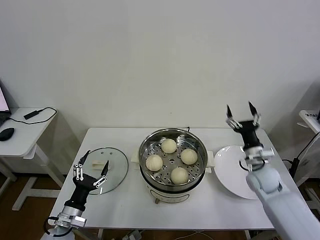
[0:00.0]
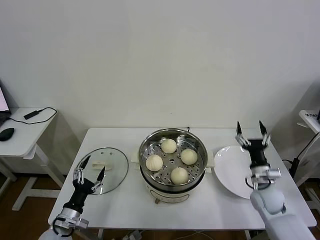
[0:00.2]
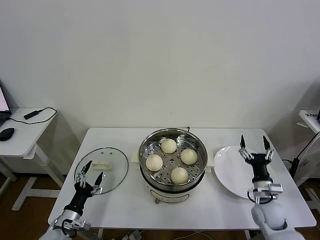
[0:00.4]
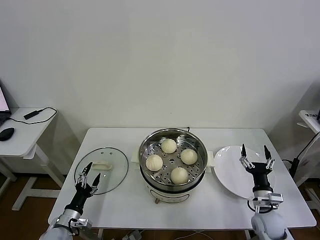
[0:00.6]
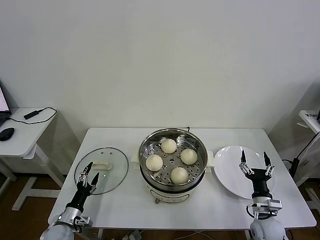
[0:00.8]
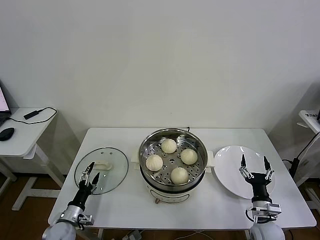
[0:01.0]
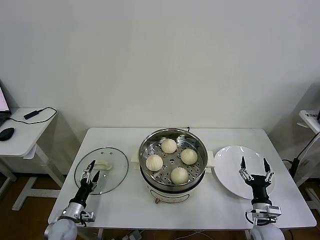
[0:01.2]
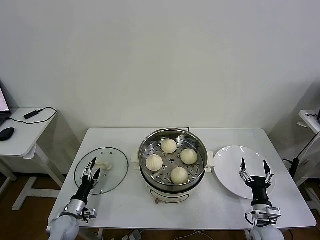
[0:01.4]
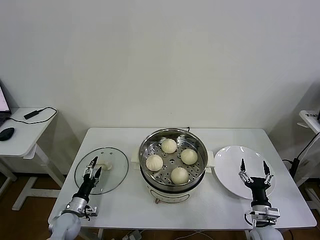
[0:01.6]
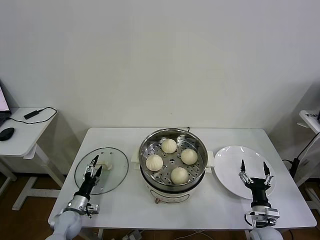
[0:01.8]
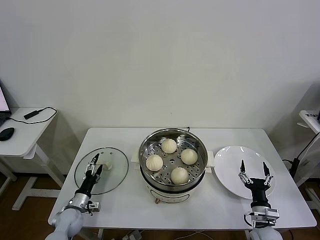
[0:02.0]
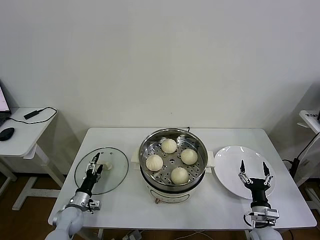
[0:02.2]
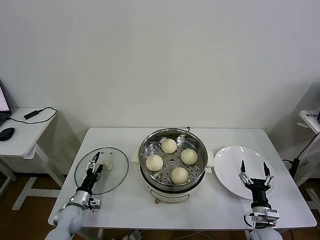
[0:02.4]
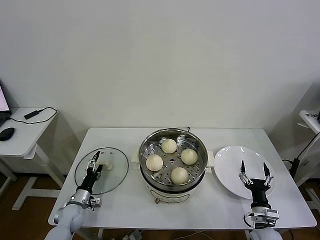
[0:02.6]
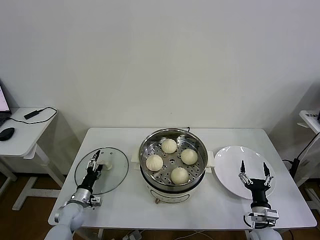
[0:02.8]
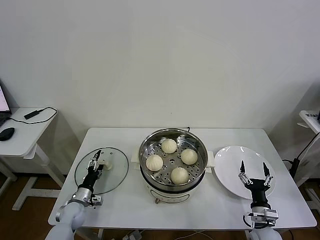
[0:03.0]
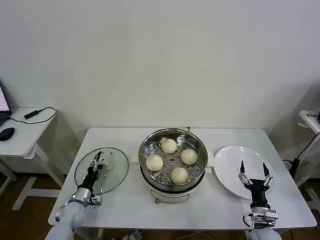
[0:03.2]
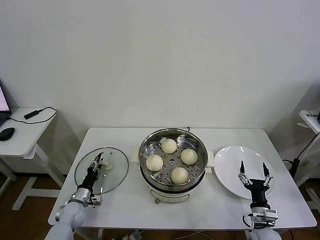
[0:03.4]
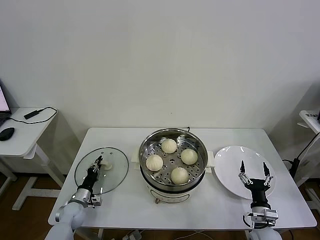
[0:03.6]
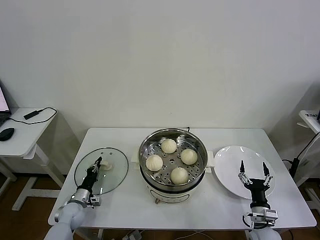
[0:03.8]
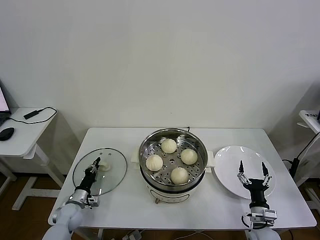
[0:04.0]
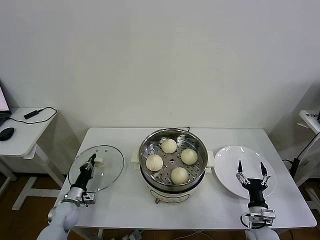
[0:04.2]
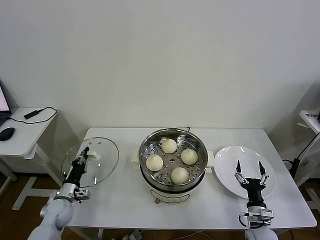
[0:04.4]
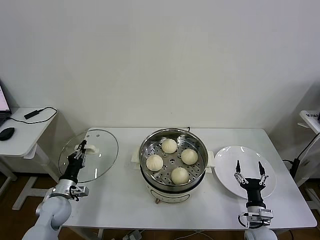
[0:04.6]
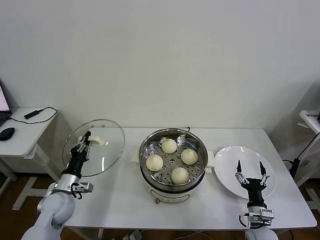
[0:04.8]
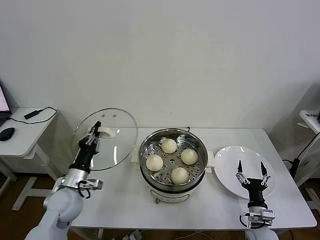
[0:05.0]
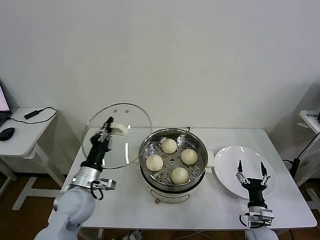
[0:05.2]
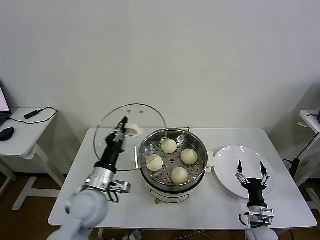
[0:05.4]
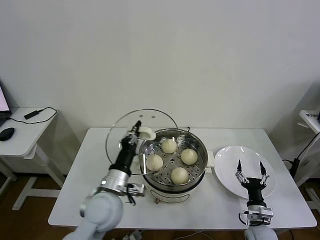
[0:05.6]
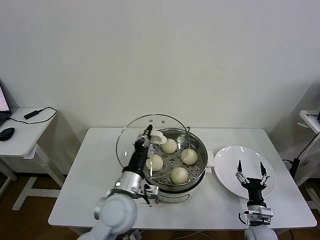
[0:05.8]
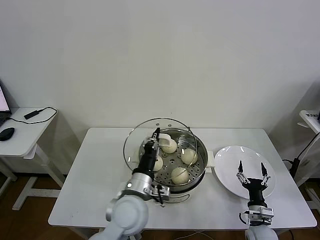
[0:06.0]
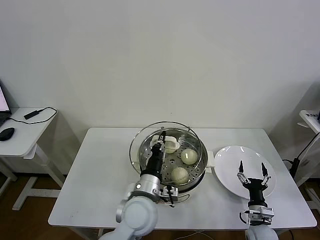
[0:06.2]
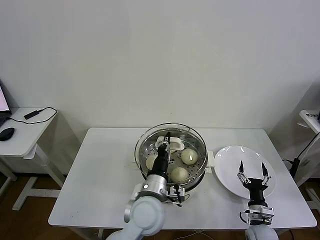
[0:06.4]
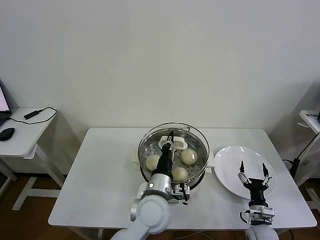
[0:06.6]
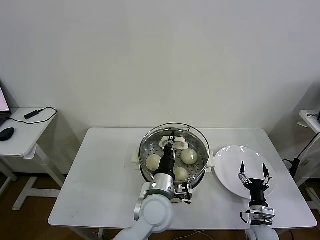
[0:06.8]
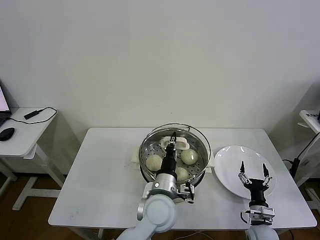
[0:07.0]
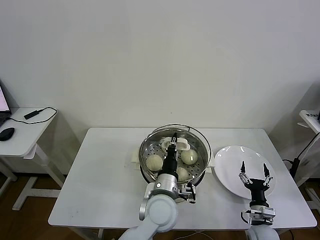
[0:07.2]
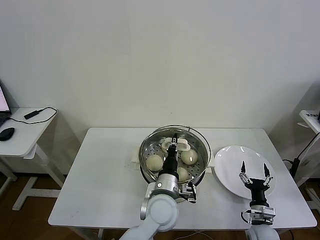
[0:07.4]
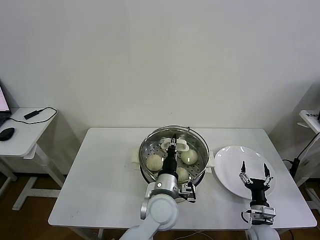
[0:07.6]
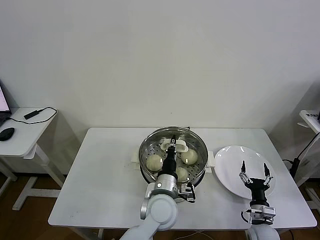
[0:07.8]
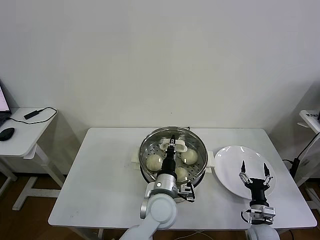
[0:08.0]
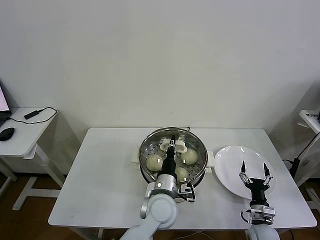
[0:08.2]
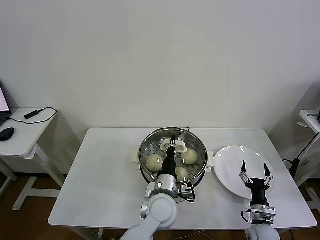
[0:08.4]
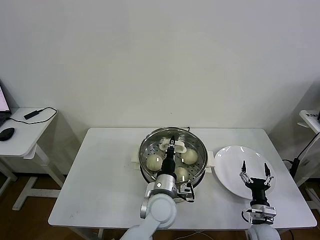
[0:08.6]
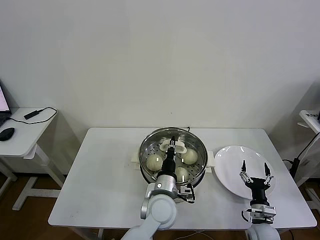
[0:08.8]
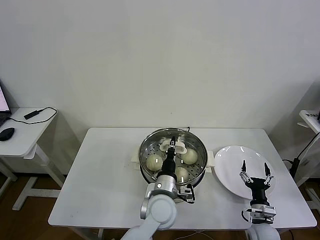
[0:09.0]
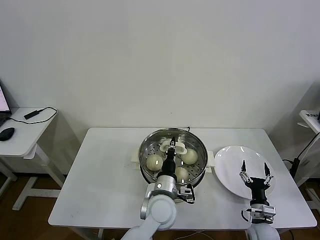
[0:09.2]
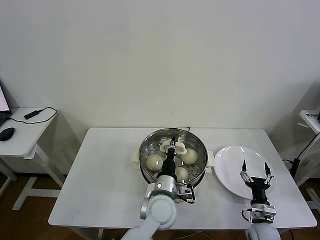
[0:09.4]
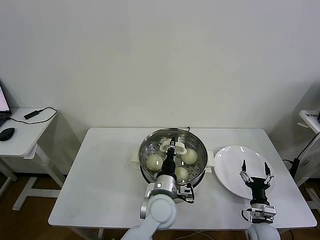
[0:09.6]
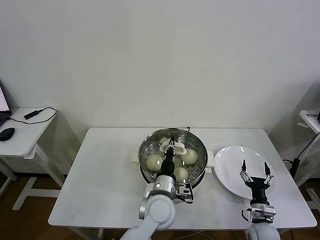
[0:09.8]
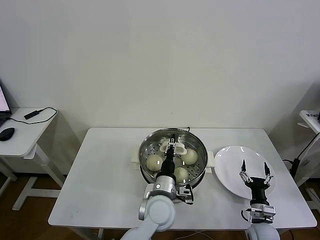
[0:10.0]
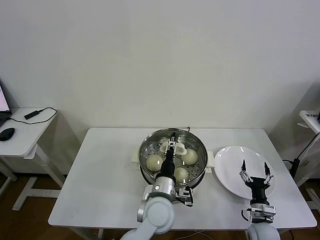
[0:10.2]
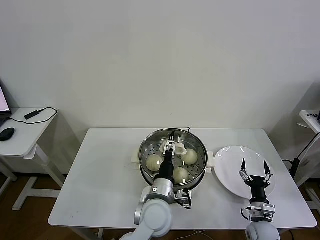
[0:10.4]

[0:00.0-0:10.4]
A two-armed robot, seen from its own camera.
Task of the whole recording: take steamed baozi put them in steamer then cover it.
Step, 0:00.0 to 0:03.8: Grasp the pot lid with left gripper.
Step, 0:04.0 to 0:10.2: Place the pot lid on the steamer with left gripper.
0:00.0 to 0:01.4: The left gripper goes some 10 cm downward and forward. Meanwhile the right gripper is displaced backward and downward by roughly 20 cm.
0:01.4 to 0:03.0: The left gripper shifts roughly 5 cm forward.
0:03.0 to 0:04.4: The left gripper shifts by some 5 cm, and closes up.
0:04.4 to 0:06.0: The left gripper shifts some 35 cm to the right and upward.
0:06.0 to 0:07.4: The left gripper travels to the right by roughly 10 cm.
0:07.4 to 0:09.0: The grippers stay close to where they were, moving slightly.
0:09.0 to 0:10.4: The left gripper opens its fingers.

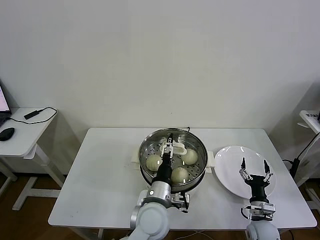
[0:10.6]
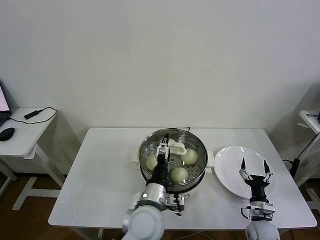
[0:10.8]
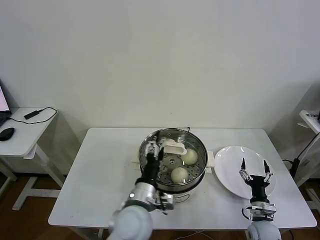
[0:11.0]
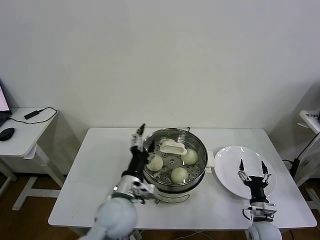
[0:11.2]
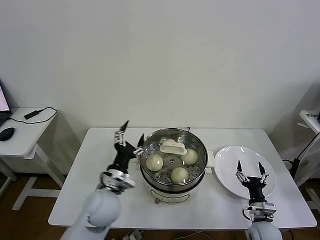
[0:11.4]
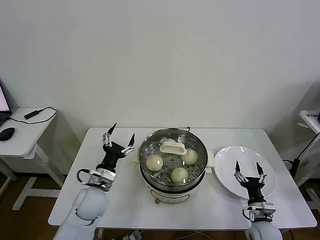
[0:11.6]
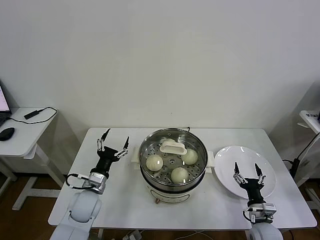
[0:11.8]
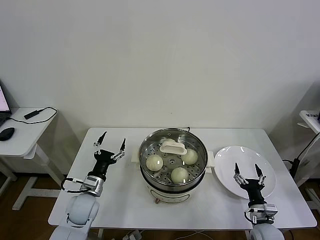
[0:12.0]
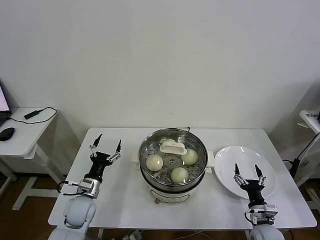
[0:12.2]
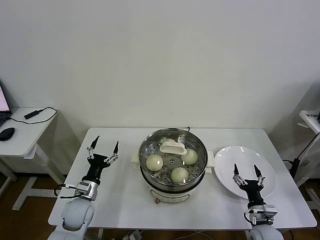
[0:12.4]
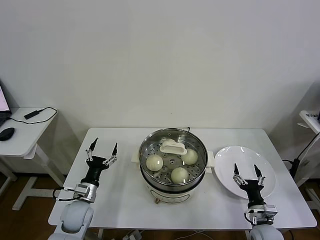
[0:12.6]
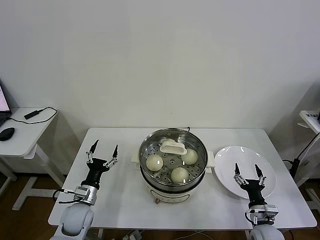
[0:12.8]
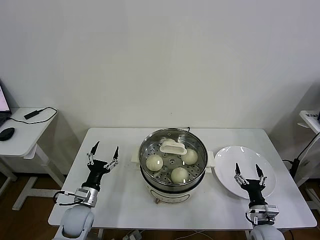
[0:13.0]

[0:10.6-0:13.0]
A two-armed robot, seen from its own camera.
Task of the whole recording: take steamed baozi put them in steamer then cover it.
0:10.6 to 0:11.8: The left gripper moves to the left, about 20 cm.
0:11.8 to 0:13.0: The left gripper goes about 5 cm downward.

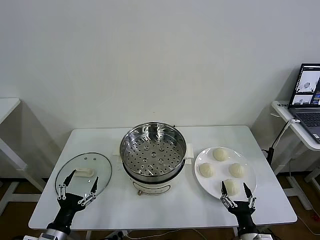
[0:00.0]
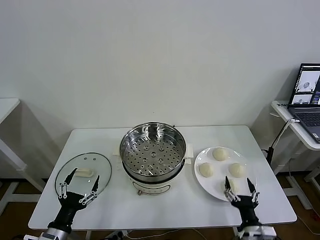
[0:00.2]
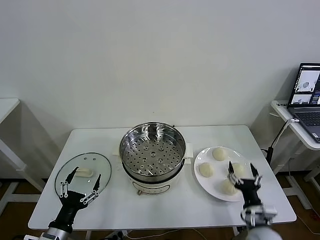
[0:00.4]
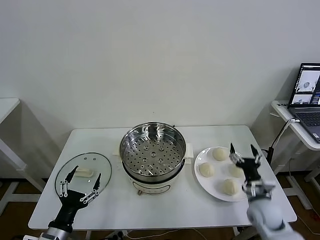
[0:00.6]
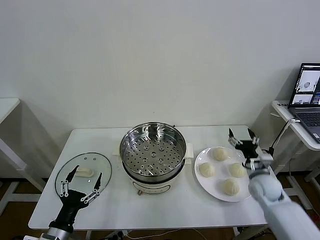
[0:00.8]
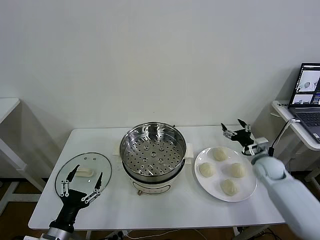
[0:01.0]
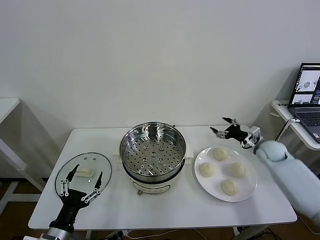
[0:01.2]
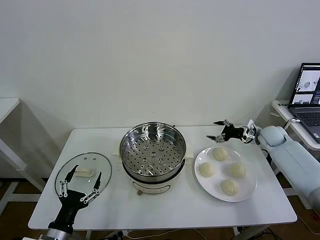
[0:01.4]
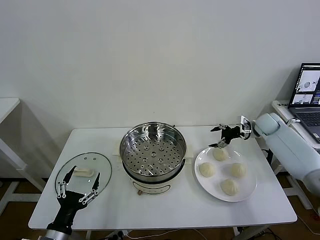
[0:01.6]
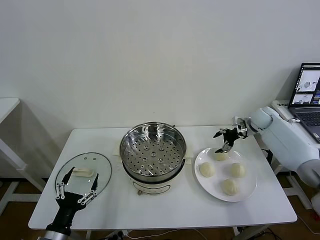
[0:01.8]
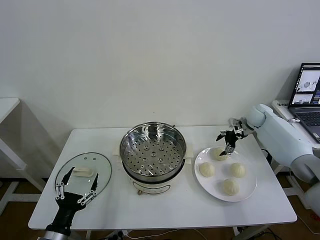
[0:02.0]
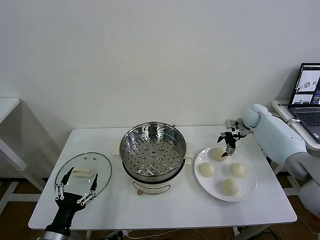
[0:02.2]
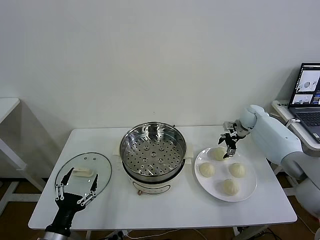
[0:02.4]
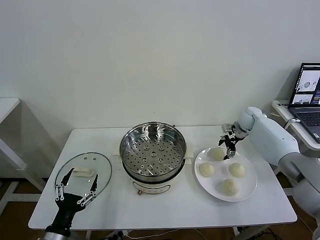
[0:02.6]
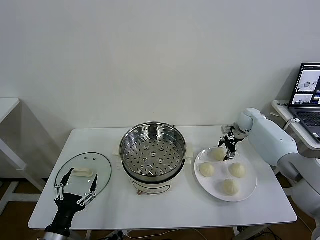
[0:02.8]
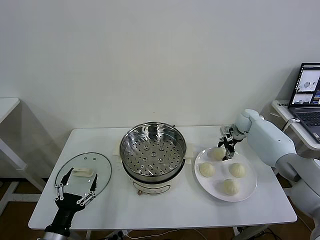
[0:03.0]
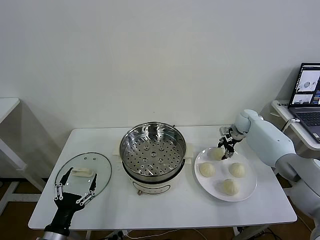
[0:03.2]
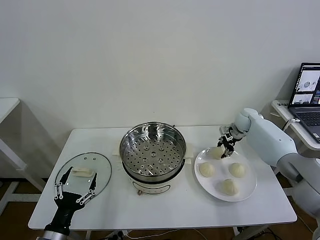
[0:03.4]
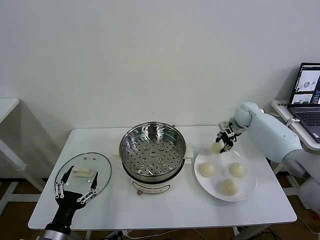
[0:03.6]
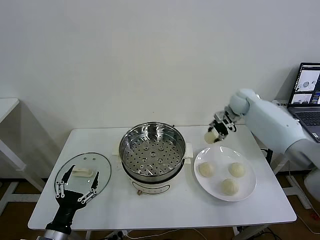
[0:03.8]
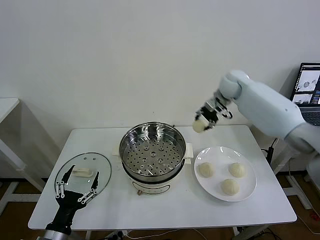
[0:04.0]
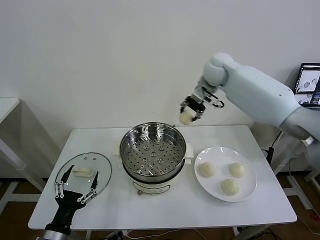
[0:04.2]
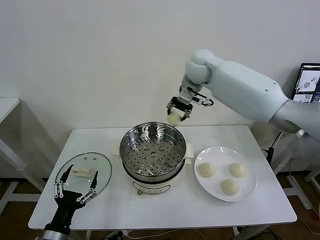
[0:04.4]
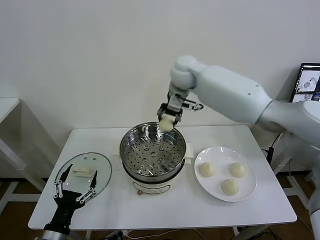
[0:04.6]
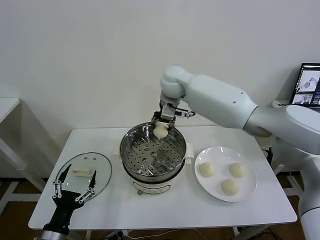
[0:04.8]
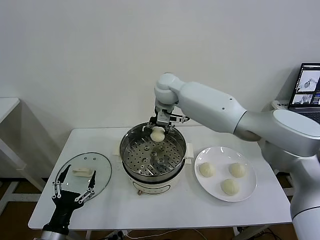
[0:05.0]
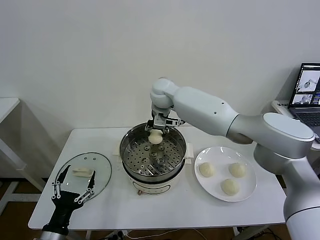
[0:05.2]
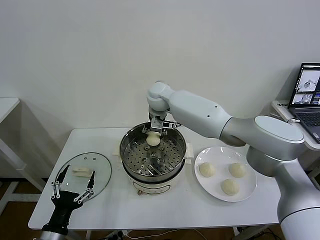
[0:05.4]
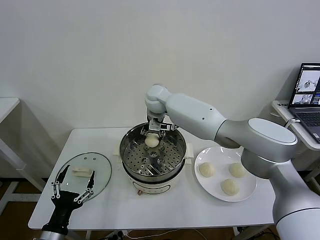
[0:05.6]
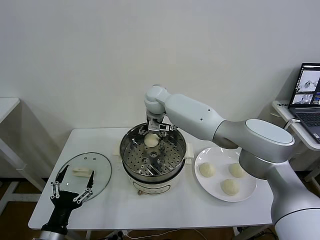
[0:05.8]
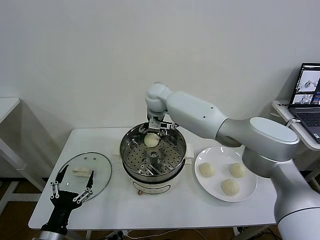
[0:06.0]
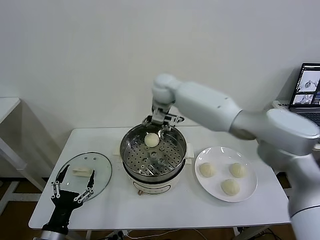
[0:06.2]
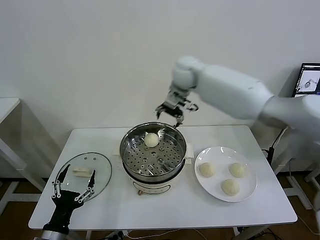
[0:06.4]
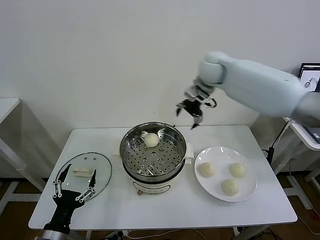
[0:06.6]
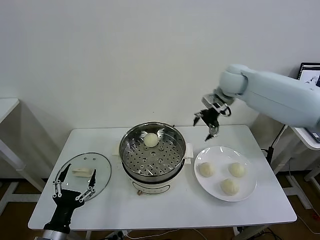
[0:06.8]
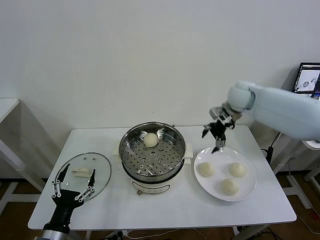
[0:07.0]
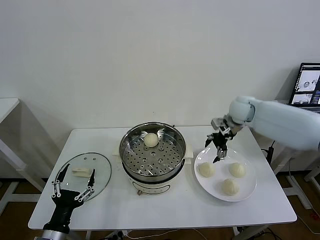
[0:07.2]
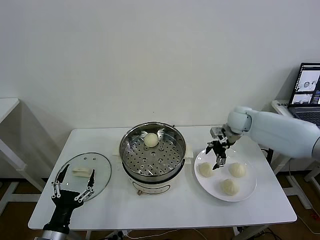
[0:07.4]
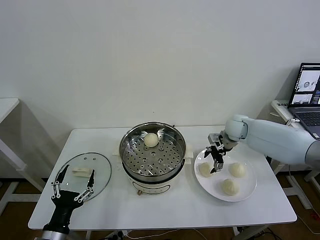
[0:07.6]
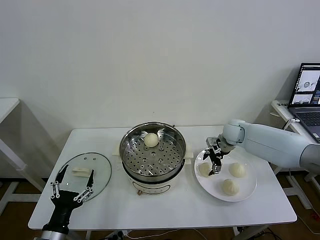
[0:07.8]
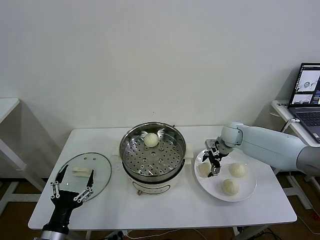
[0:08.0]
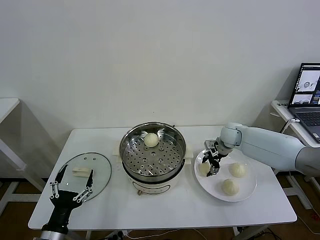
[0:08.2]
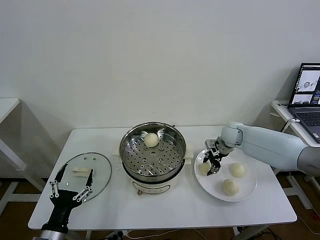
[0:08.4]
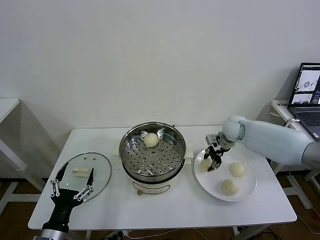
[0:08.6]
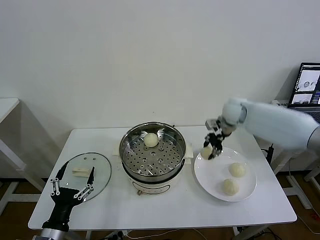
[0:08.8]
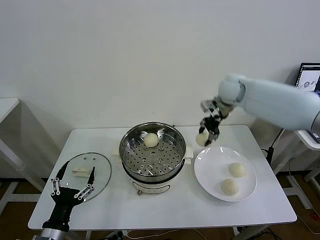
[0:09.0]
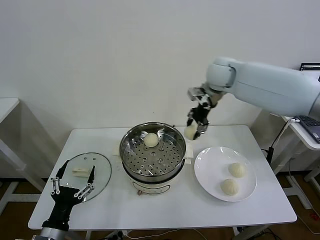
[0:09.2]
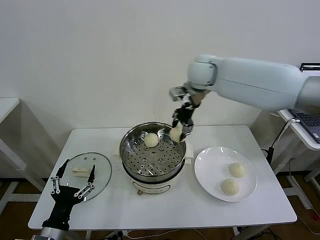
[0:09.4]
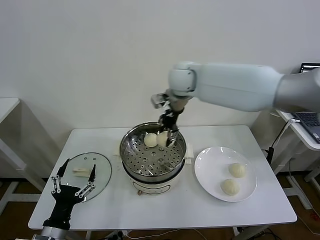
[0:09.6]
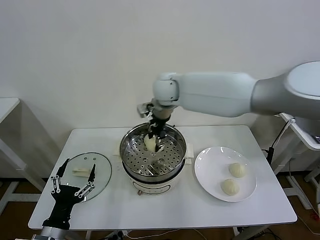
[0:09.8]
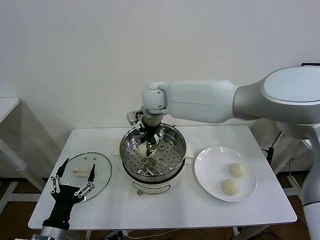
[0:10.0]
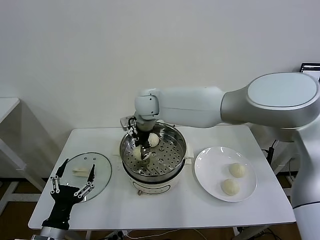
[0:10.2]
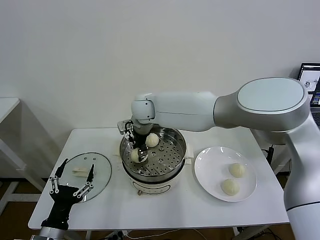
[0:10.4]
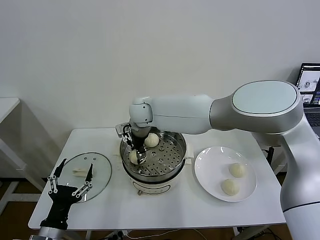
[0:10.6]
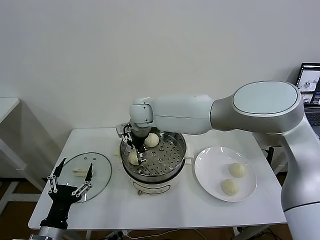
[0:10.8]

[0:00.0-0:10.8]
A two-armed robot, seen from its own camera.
Task of the whole recording: take steamed baozi put them in steamer then cover it.
Step, 0:00.0 to 0:03.0: Grasp the baozi in the plate with right gripper.
Step, 0:03.2 to 0:05.8: Place the baozi on the steamer with right gripper.
Step, 0:06.0 to 0:08.2: Grasp the baozi in the plate with right gripper.
0:01.6 to 0:03.0: The right gripper heads to the left, covering roughly 5 cm, and closes its fingers.
0:03.0 to 0:04.6: The right gripper shifts roughly 40 cm to the left and upward, and closes its fingers.
0:04.6 to 0:06.2: The right gripper moves roughly 10 cm downward and comes back, and opens up.
0:06.2 to 0:07.8: The right gripper shifts approximately 30 cm to the right and downward.
0:07.8 to 0:09.2: The right gripper heads upward and to the left, covering approximately 30 cm, and closes up.
0:09.2 to 0:10.8: The right gripper shifts roughly 25 cm to the left and downward, and opens.
